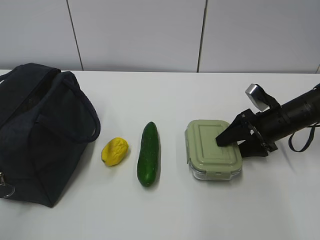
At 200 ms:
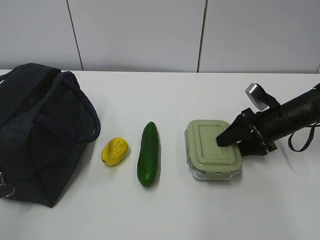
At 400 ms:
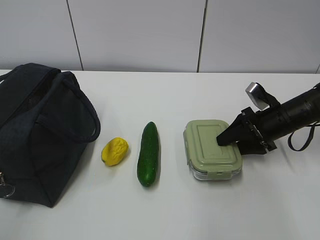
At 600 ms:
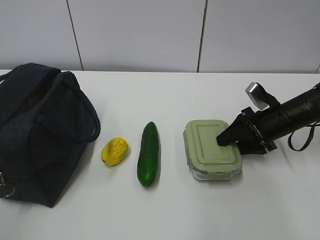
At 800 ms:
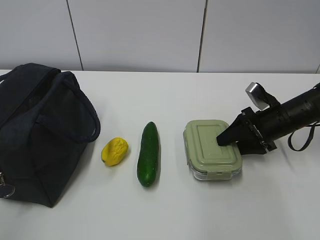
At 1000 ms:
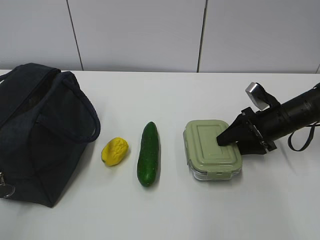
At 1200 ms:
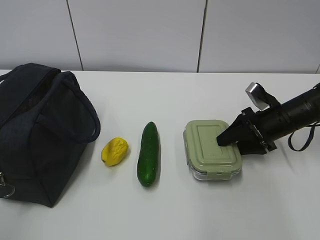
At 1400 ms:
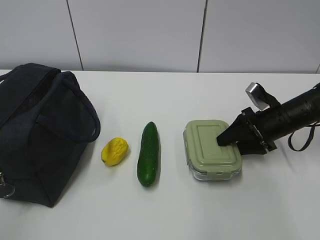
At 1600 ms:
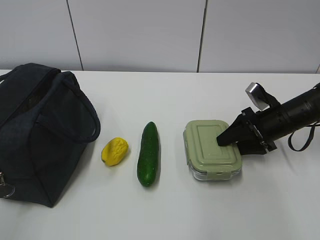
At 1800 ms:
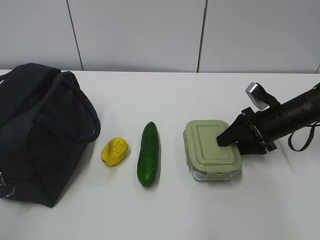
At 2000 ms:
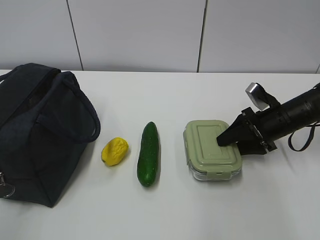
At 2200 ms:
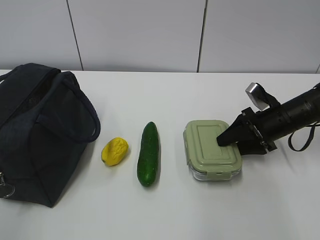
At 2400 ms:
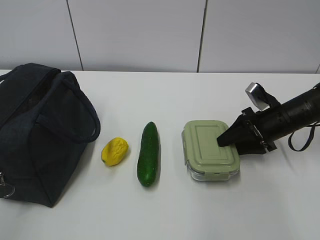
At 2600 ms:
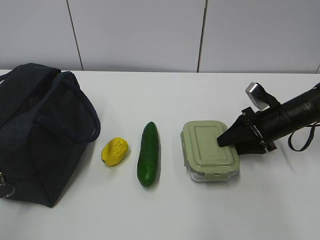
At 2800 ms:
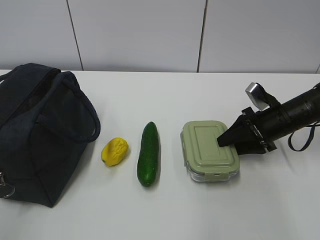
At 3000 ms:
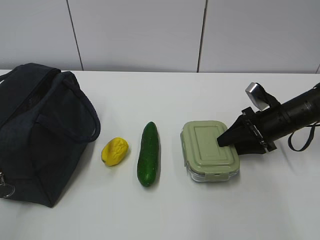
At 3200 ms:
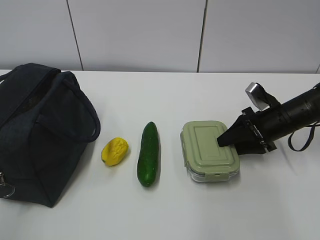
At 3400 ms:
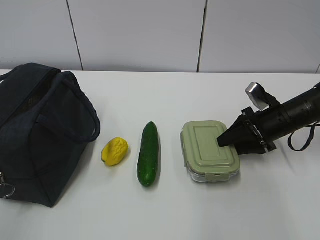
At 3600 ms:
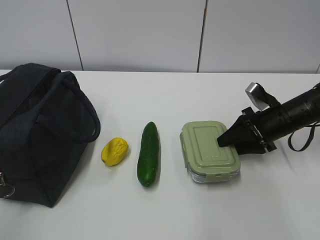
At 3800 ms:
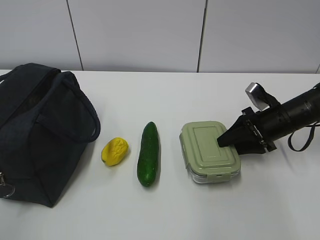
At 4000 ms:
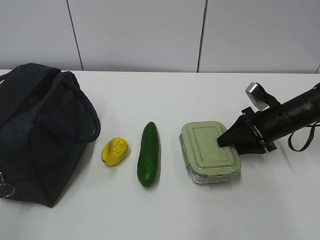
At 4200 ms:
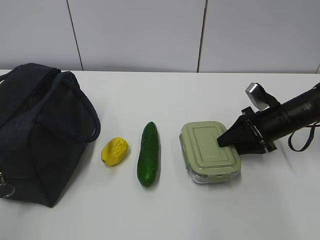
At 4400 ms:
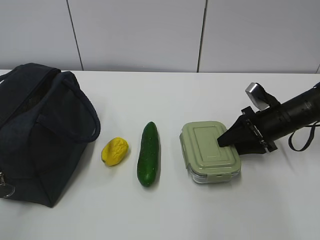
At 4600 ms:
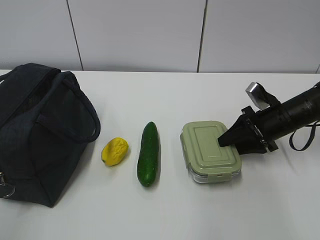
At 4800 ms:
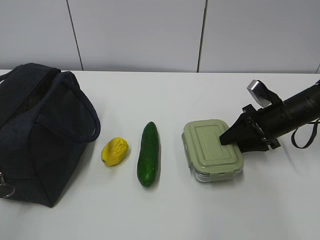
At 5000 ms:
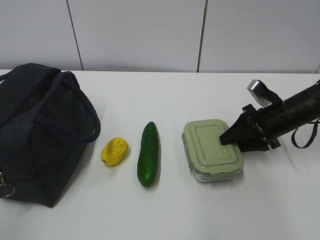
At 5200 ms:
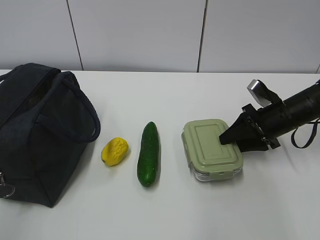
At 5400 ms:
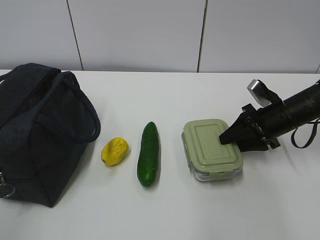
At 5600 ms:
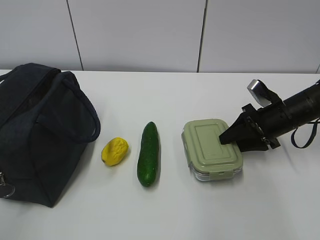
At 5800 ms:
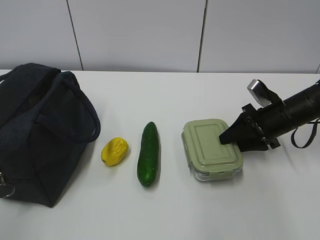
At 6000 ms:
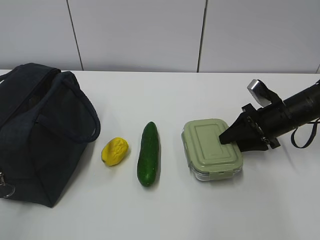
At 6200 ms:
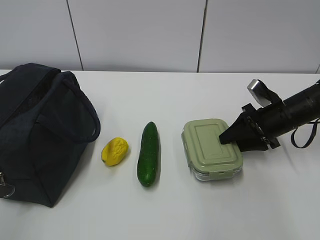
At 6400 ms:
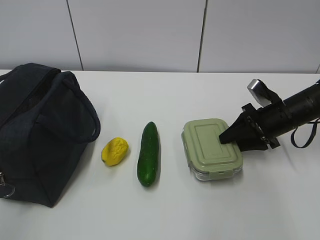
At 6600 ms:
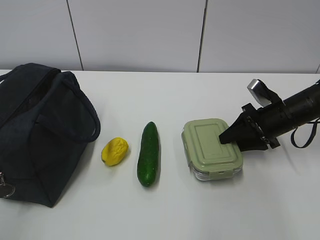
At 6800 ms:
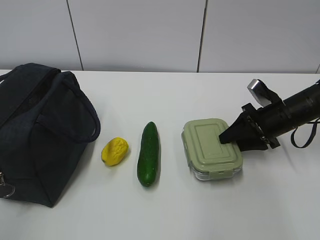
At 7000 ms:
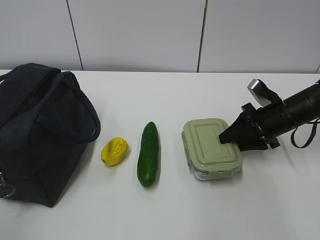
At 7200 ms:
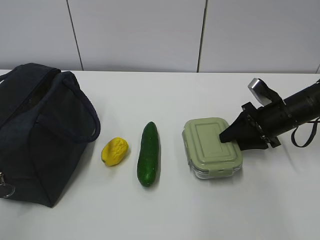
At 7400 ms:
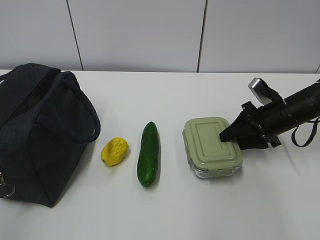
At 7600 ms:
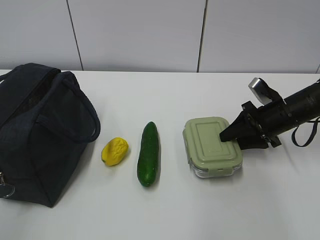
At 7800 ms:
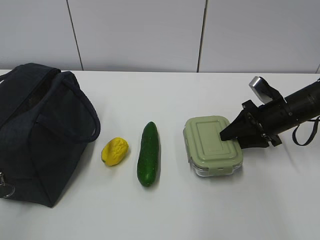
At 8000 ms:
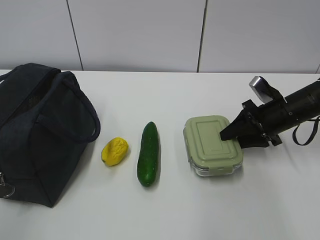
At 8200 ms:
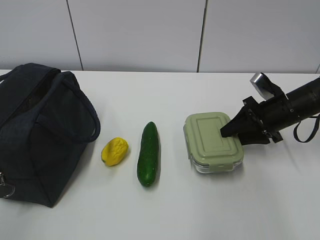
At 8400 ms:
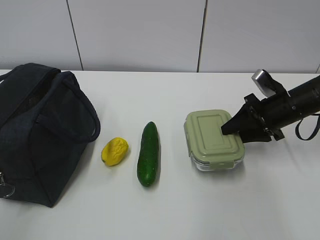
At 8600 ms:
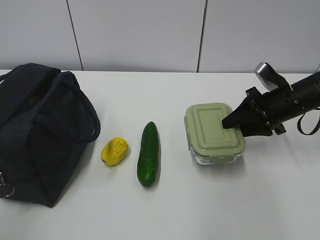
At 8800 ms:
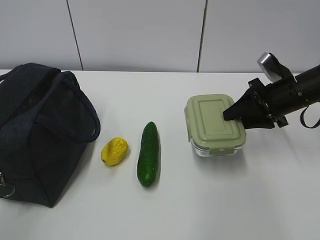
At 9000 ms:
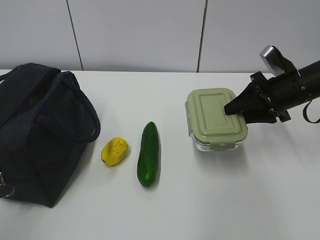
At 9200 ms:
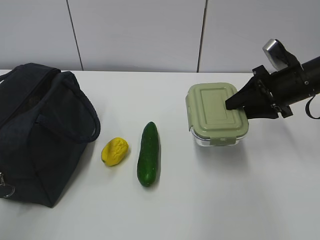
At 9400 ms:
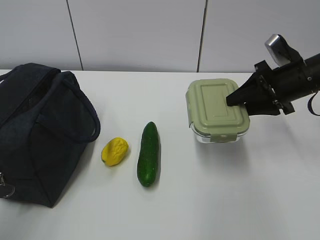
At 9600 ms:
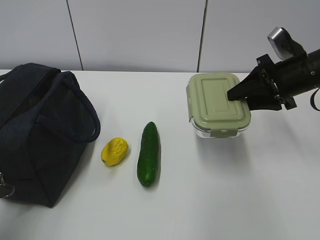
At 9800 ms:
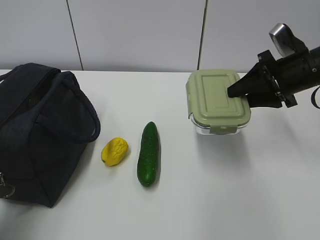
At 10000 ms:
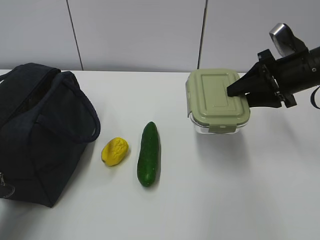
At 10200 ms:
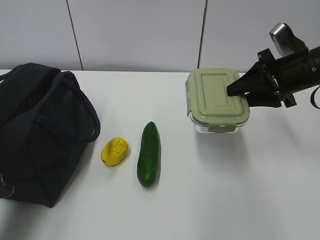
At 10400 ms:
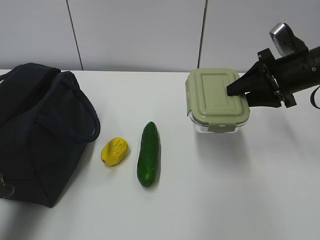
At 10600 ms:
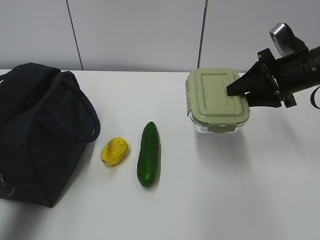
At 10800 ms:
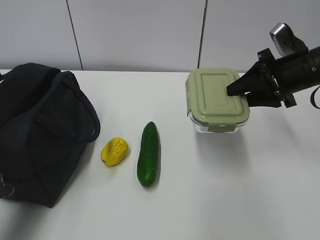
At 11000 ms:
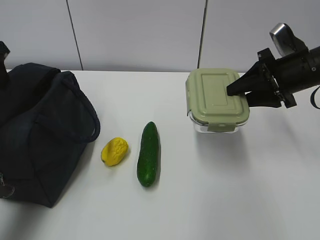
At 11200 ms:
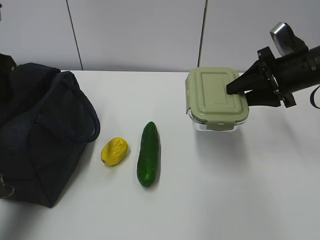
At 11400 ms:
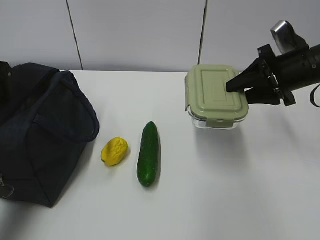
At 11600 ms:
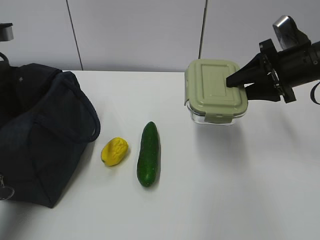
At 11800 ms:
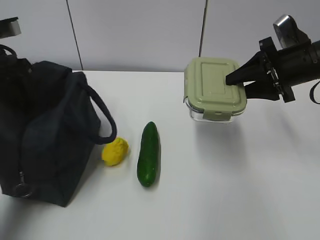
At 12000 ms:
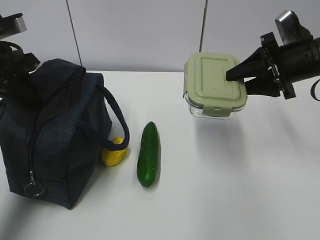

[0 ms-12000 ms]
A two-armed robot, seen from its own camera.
Step, 0 ms to 5000 ms: Grasp the box with the right gripper.
Step, 5400 ms to 11800 ms: Grasp the package with the left gripper.
0 ms to 7600 ms: Neither gripper changes place.
7600 ms to 9000 ms: The right gripper travels upward by about 5 cm.
9000 ms to 10400 ms: The left gripper moves forward, roughly 25 cm, and opens its fingers.
10400 ms to 12000 ms: The left gripper heads forward and downward, covering about 15 cm, and closes.

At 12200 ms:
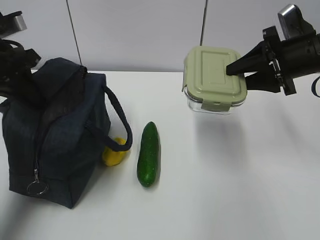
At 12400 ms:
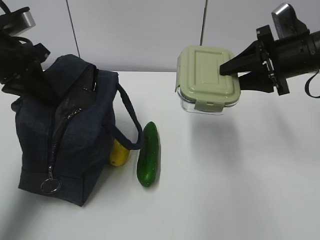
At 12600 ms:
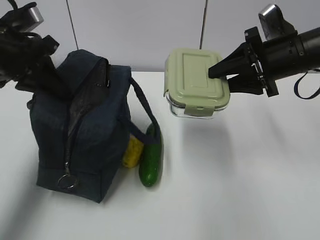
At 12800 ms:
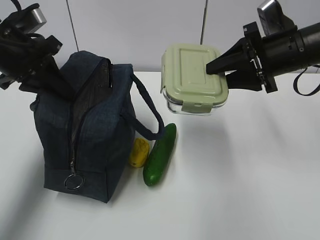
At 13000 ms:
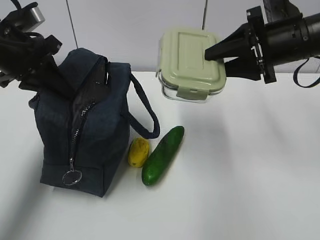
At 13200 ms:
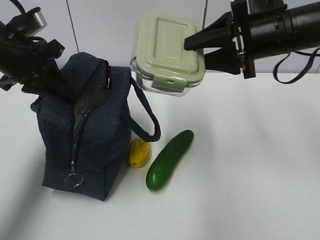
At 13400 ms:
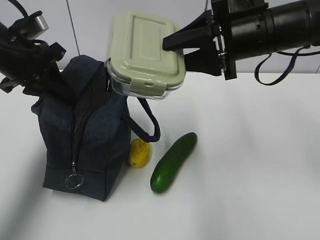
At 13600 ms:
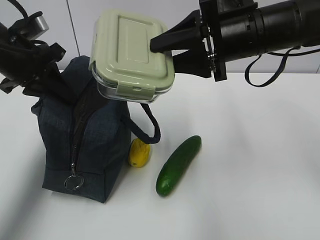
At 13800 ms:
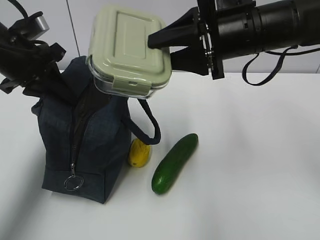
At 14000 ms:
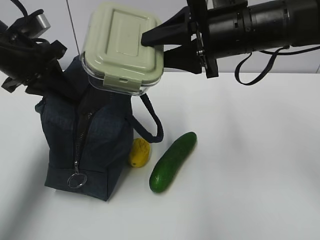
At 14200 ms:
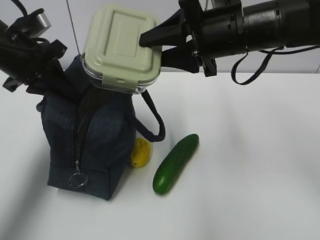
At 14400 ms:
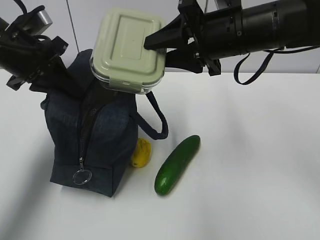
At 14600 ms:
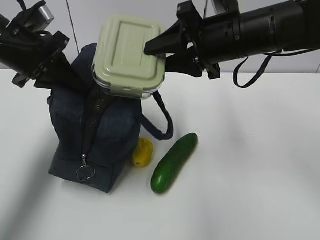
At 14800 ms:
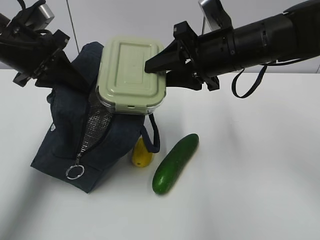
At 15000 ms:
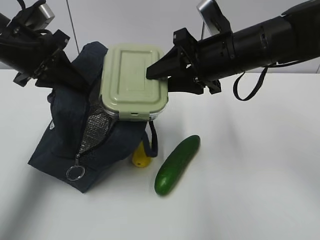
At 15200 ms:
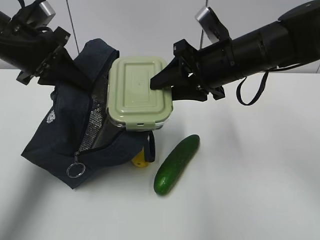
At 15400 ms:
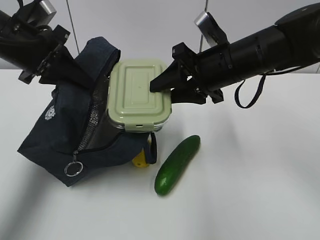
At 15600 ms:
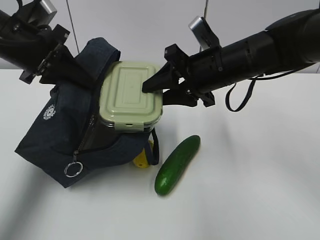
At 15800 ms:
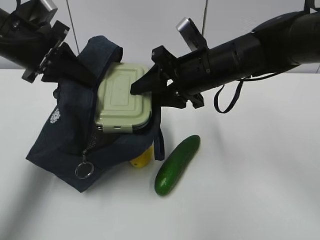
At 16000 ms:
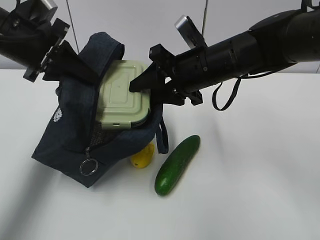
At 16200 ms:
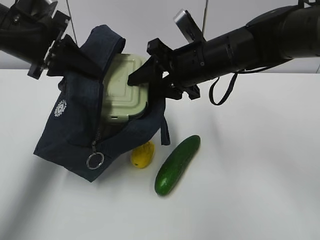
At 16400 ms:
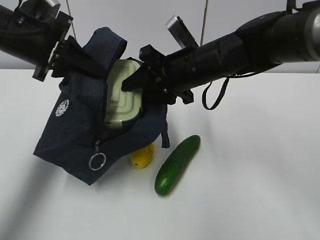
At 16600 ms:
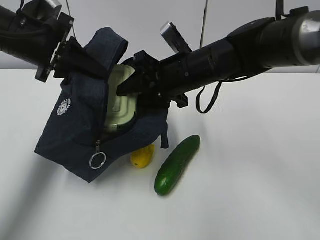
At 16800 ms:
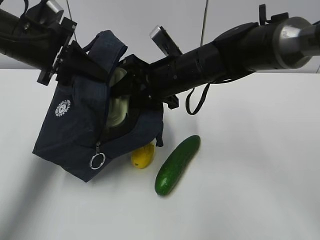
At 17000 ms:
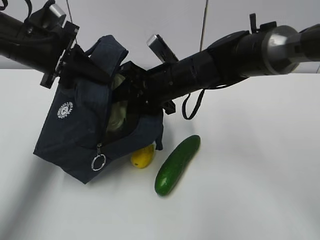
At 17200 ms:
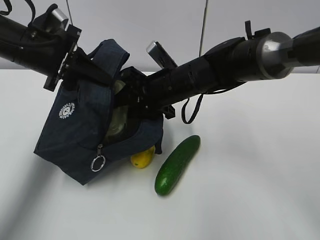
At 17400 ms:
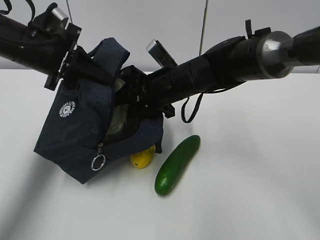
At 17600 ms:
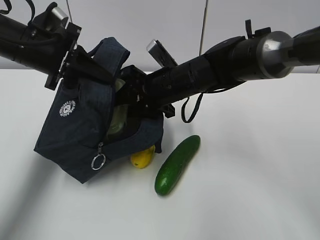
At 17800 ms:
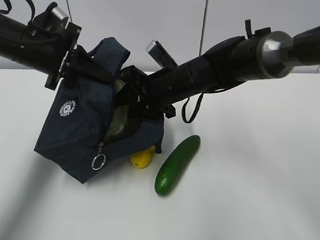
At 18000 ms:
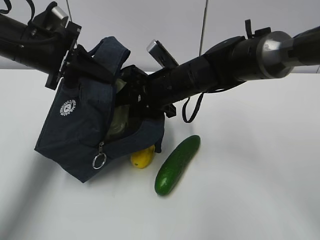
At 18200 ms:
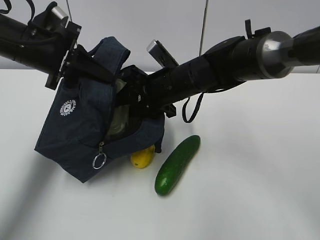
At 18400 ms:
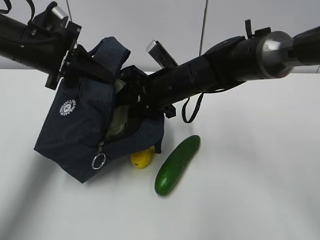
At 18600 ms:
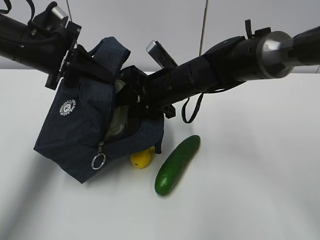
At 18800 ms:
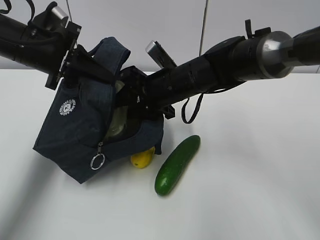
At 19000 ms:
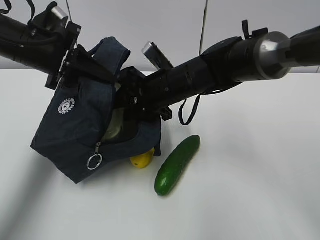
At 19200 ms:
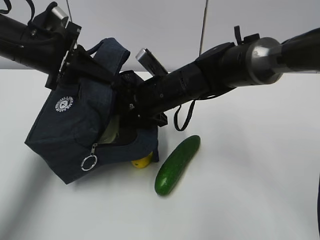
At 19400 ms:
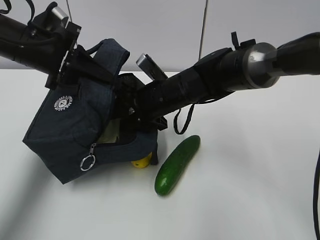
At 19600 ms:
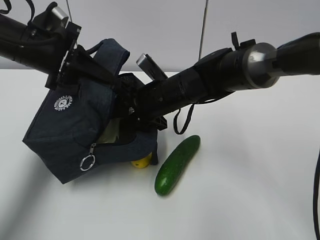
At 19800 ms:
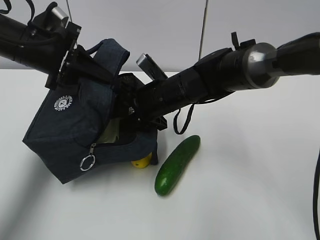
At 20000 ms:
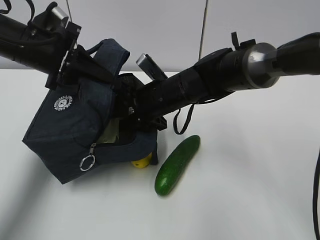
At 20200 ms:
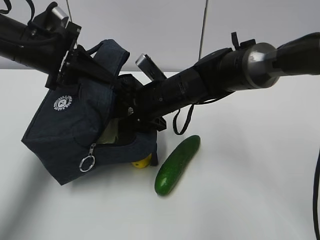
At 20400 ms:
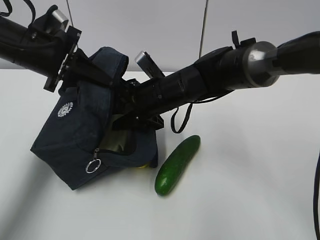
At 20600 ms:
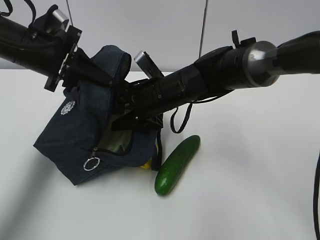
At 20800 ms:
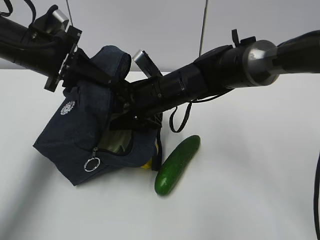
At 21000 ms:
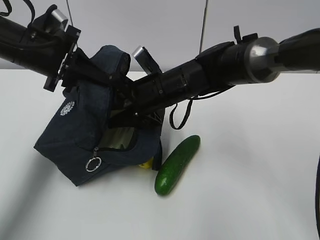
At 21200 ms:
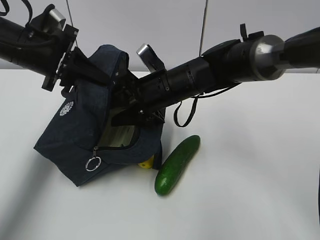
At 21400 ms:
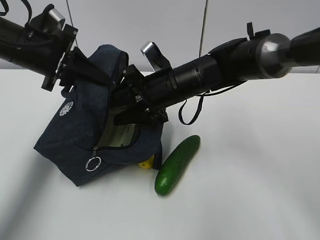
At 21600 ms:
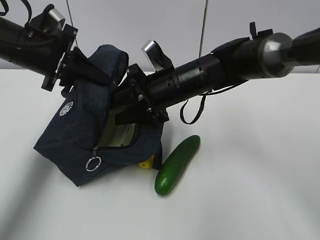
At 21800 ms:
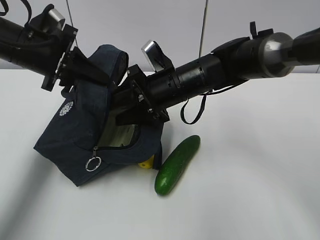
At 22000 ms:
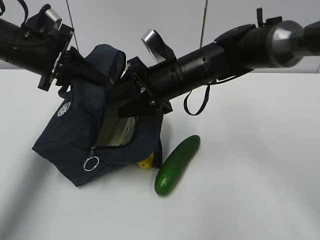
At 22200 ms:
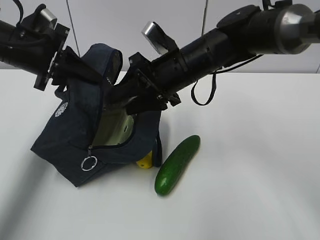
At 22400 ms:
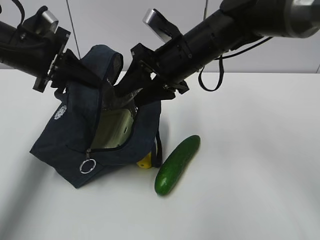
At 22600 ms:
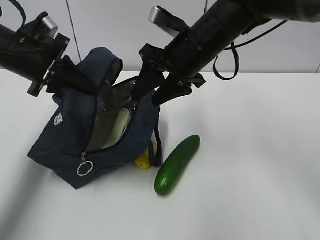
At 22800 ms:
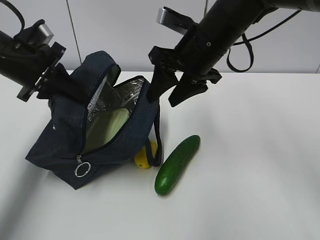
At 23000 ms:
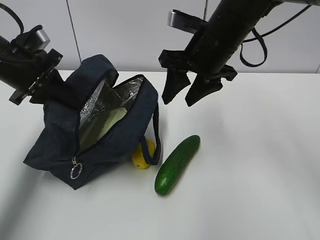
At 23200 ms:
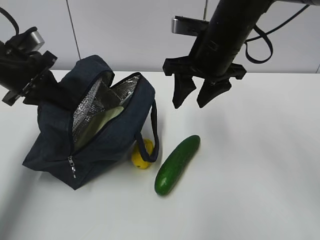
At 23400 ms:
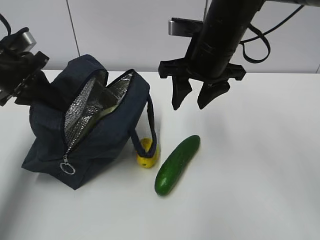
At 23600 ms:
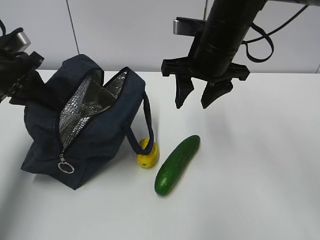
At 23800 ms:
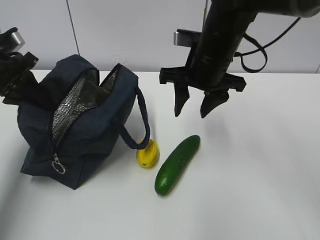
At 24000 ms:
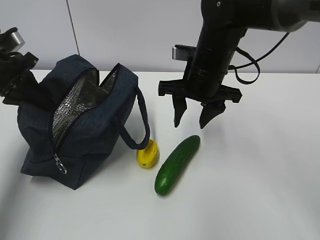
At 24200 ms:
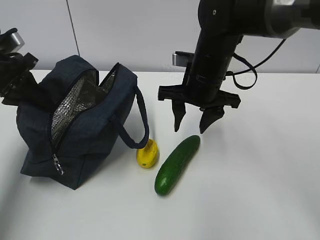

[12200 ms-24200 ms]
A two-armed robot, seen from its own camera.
Step, 12200 ms to 21800 ms: Place the box into the package with the right gripper.
12200 ms to 13800 ms: The right gripper heads to the left and upward, covering about 15 cm.
13800 ms to 15200 ms: The right gripper ends up roughly 5 cm from where it was.
15200 ms to 16600 ms: The right gripper travels to the left by approximately 5 cm.
16600 ms to 18200 ms: The grippers move only a little.
18200 ms to 21200 ms: The grippers stay close to where they were, moving slightly.
21200 ms to 22600 ms: The right gripper goes roughly 10 cm upward.
22600 ms to 24200 ms: The left gripper shifts some 5 cm to the left.
